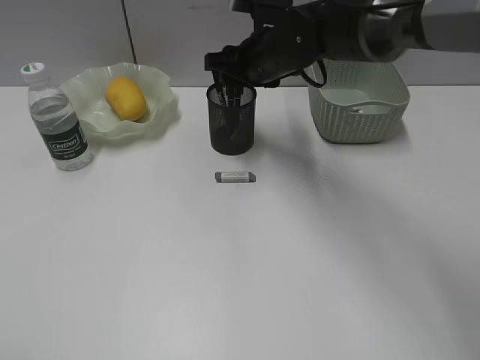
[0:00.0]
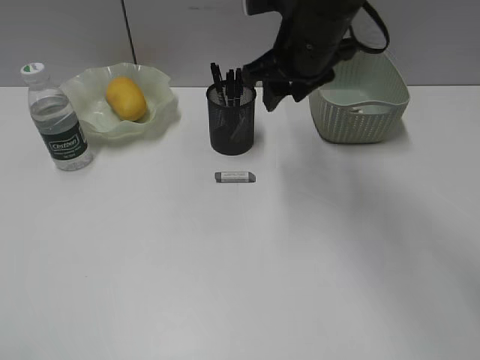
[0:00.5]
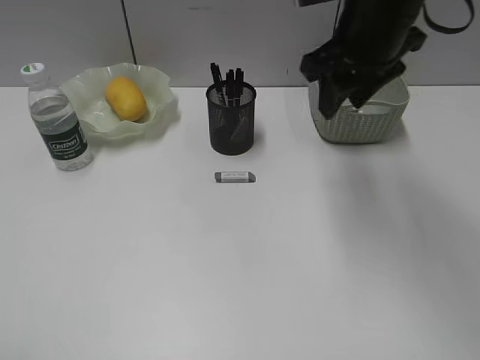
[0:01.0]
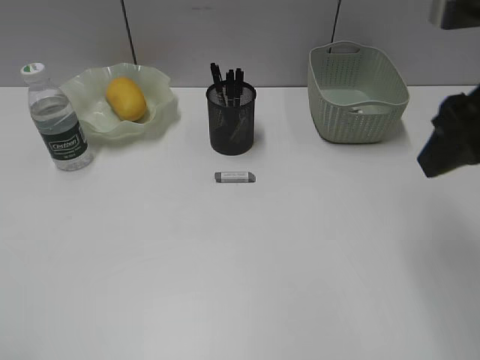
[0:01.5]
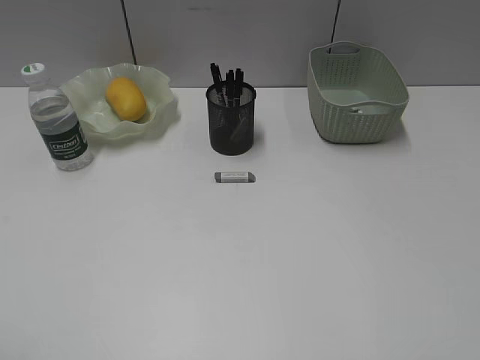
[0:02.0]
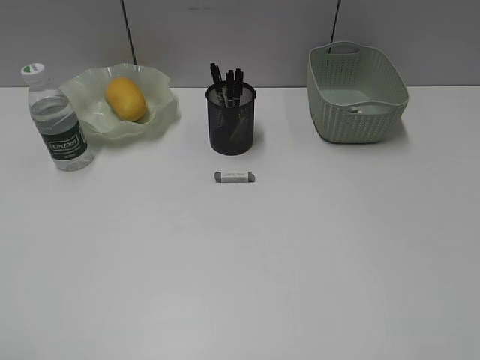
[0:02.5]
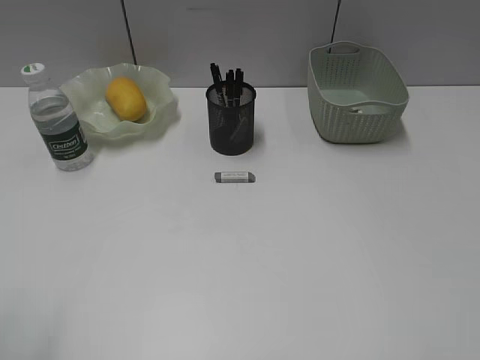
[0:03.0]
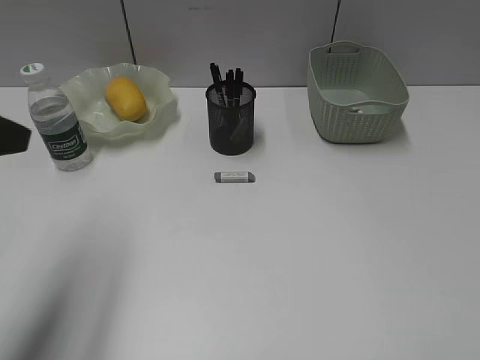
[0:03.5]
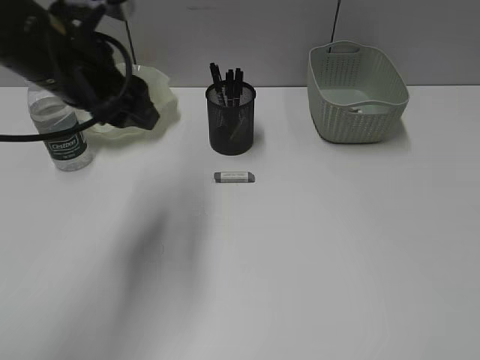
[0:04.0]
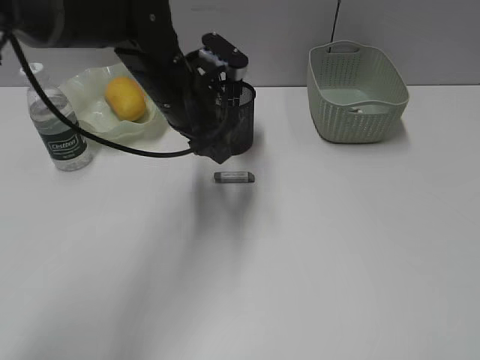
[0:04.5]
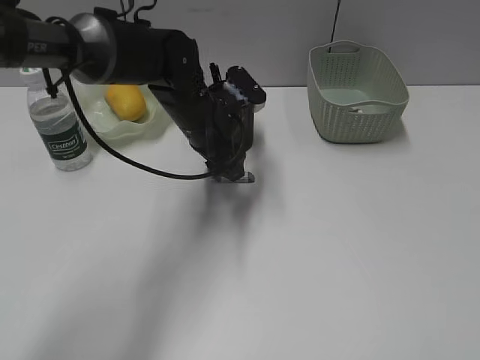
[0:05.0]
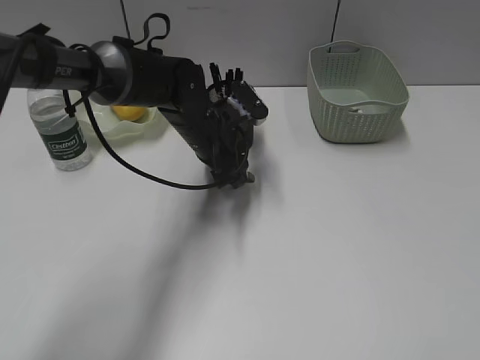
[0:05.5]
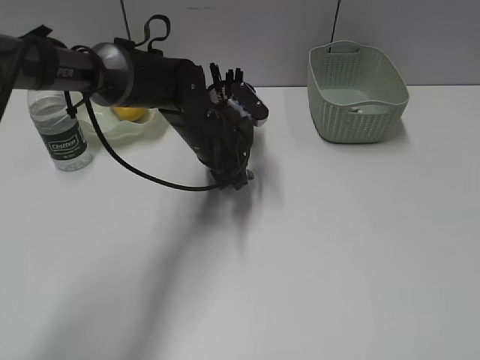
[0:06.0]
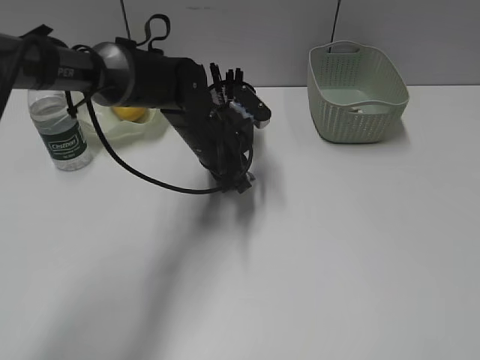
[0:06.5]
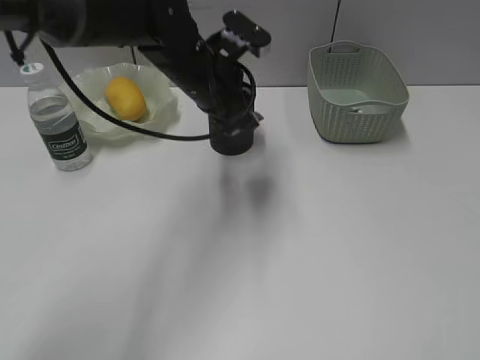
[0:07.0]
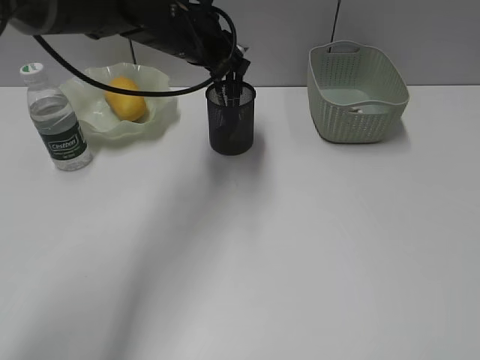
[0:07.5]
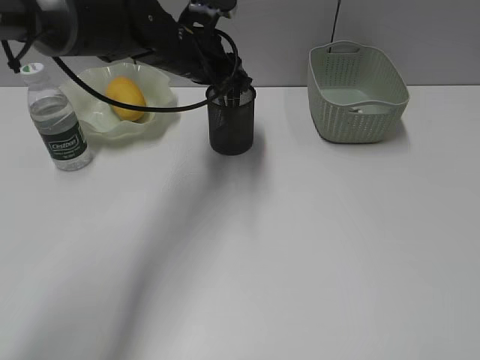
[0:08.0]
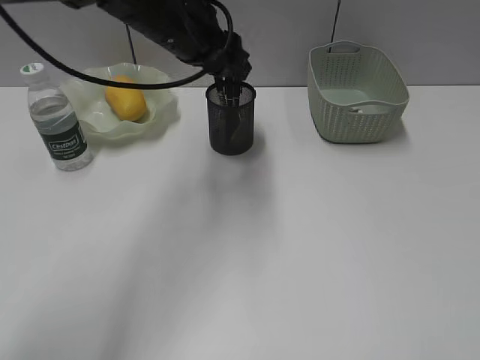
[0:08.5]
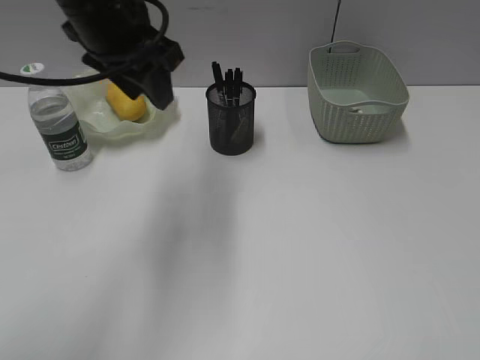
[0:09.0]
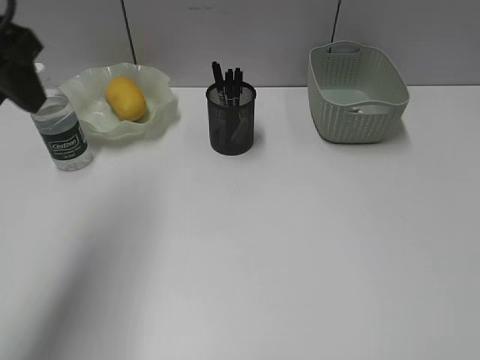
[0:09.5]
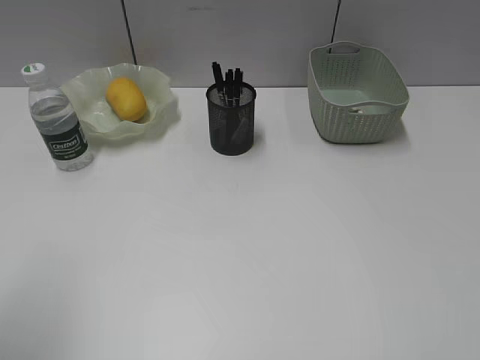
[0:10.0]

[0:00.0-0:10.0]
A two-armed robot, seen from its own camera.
Step, 0:00.5 to 0:06.5: Grasp the eraser with left gripper.
Step, 0:07.0 to 0:08.0: Place the eraser in pen holder with left gripper.
0:00.0 to 0:02.0: The right gripper goes some 40 cm backward and to the right.
0:02.0 to 0:04.0: The right gripper is displaced backward by approximately 5 cm; the left gripper shifts approximately 35 cm forward and to the right.
0:04.0 to 0:06.0: The left gripper heads downward, to the right and forward, covering approximately 20 cm.
0:06.0 to 0:08.0: The left gripper is displaced upward by about 10 cm, and closes and opens again.
0:08.0 to 0:10.0: The left gripper moves backward and to the left, about 40 cm.

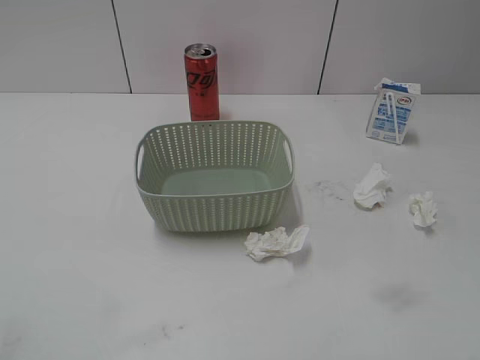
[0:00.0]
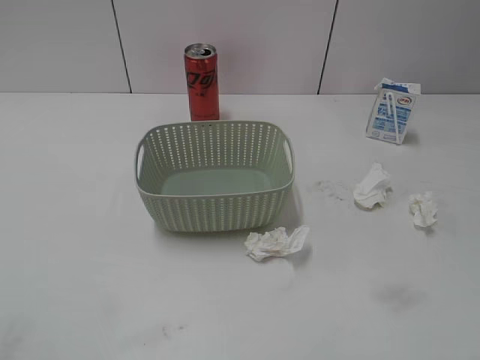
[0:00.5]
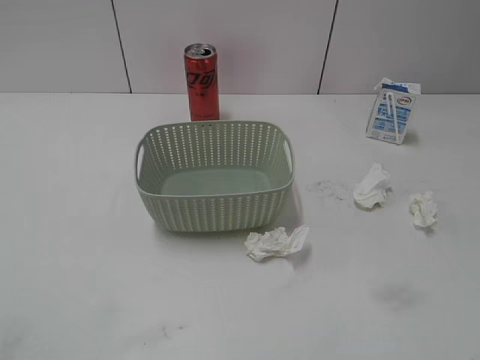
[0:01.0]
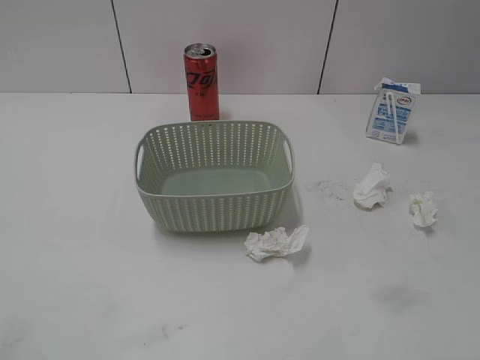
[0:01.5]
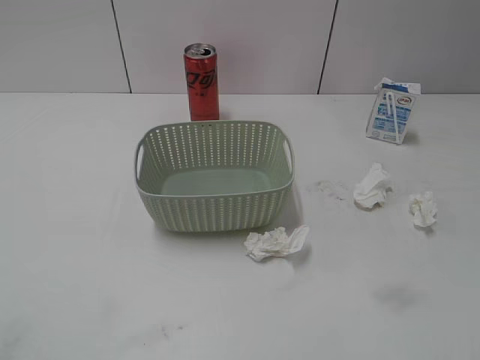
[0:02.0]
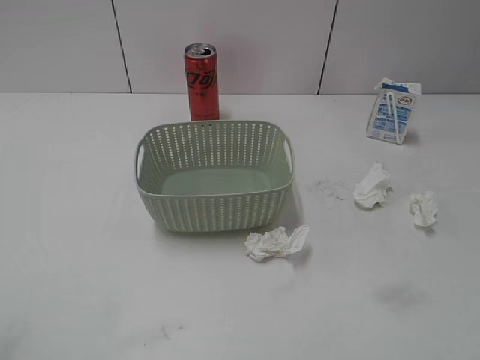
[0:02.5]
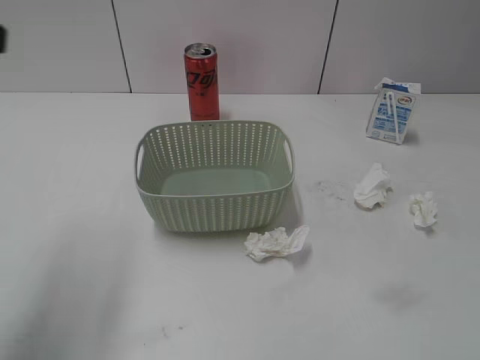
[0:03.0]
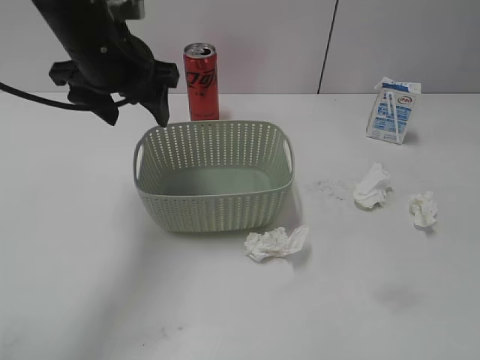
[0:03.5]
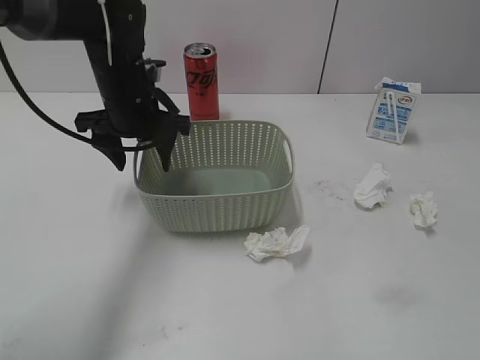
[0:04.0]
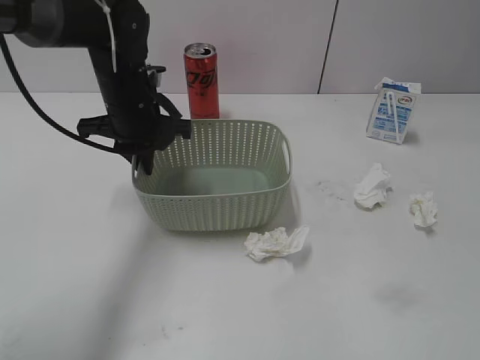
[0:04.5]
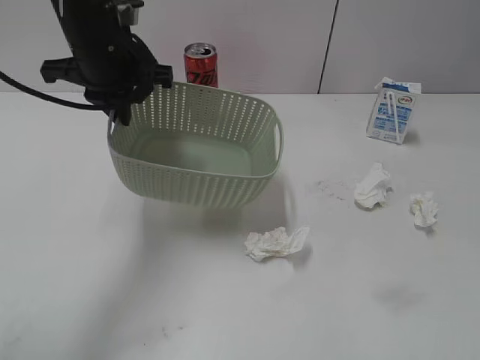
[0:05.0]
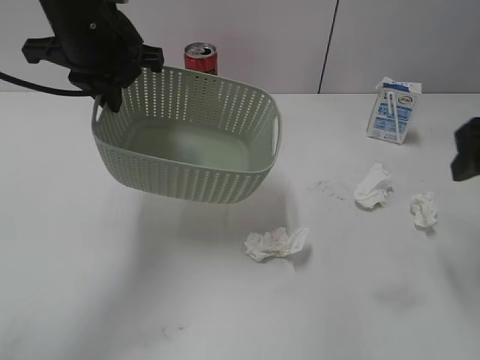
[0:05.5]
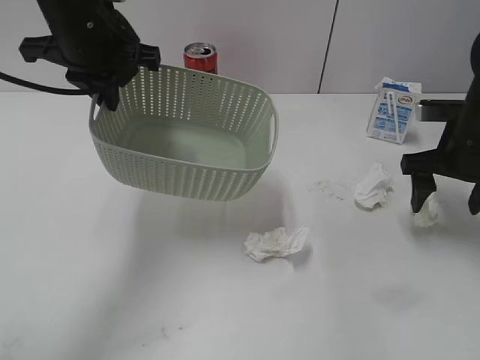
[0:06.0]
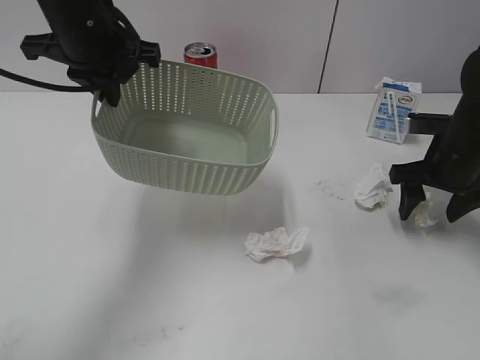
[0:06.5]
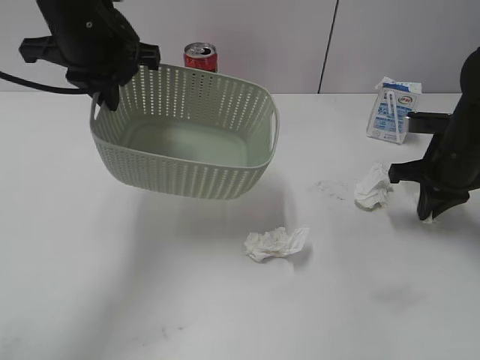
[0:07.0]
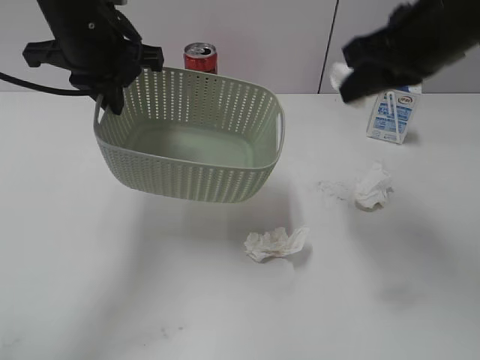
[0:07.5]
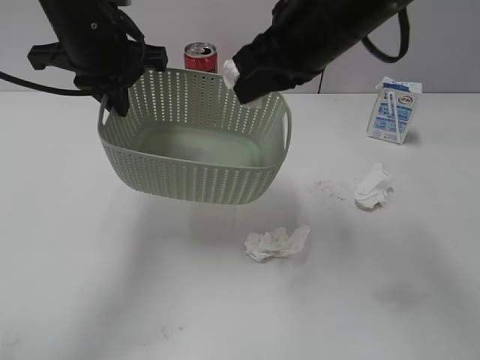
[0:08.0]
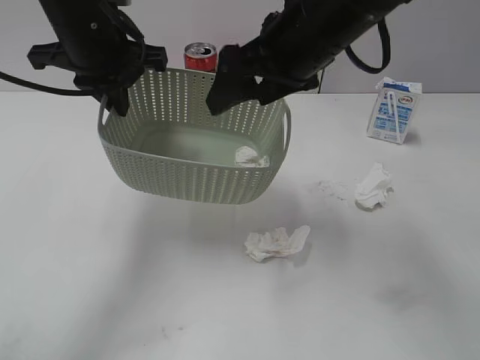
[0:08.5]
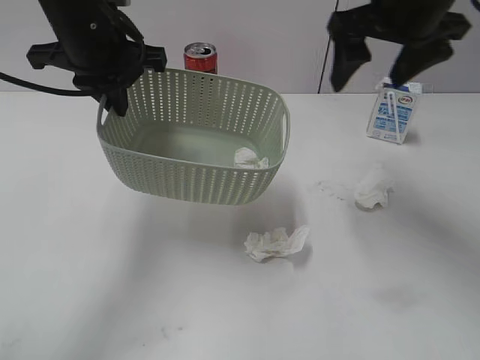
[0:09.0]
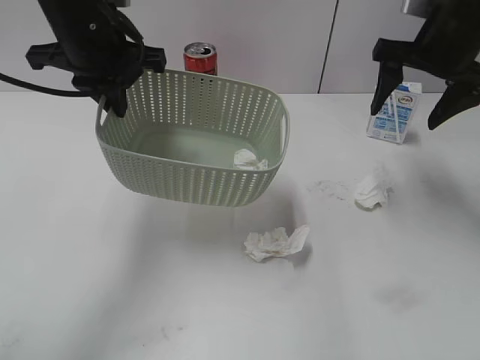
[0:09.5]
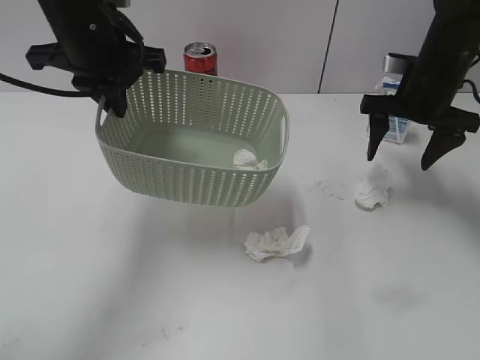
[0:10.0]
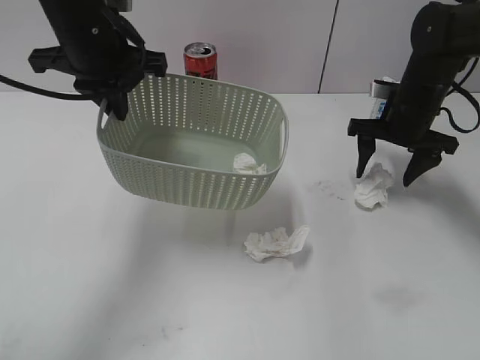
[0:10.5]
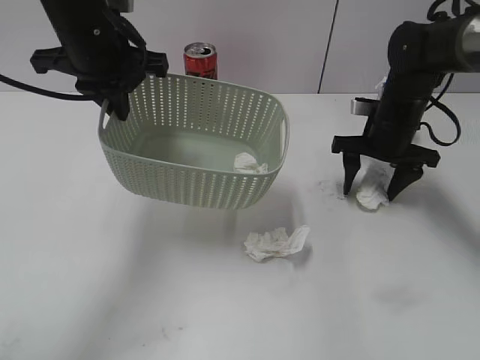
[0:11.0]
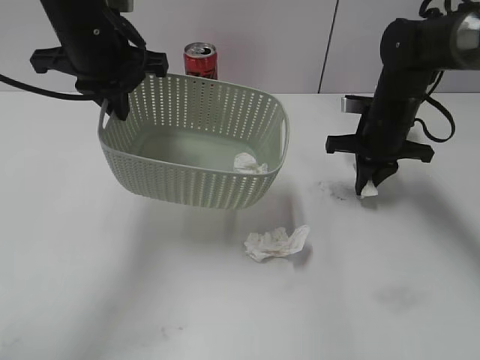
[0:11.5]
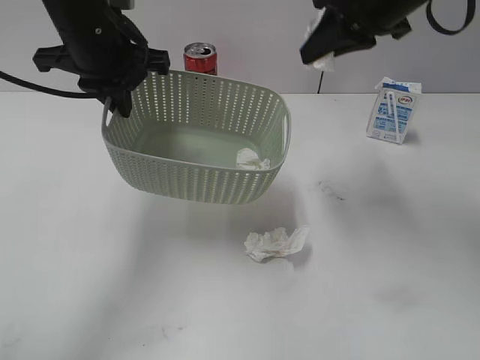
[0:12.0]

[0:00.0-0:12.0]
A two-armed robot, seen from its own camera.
Step, 0:03.0 to 0:04.5: Grasp the basket with left gripper.
Step, 0:05.0 to 0:05.5: Lift the basket with left gripper.
Step, 0:06.0 to 0:07.0: Grasp the waste paper with right gripper.
Step, 0:07.5 to 0:08.0: Place the waste paper in the basket with right gripper.
Step, 0:08.5 to 0:11.0: Grasp the waste paper with right gripper.
0:02.0 to 0:04.0: The left gripper is displaced forward and to the right by roughly 40 cm.
0:04.0 to 0:06.0: The left gripper moves upward, about 10 cm, and closes up. Meanwhile the right gripper heads forward, covering some 35 cm.
0:06.0 to 0:08.0: The right gripper is displaced to the left and upward by roughly 25 cm, and closes.
0:08.0 to 0:10.0: The right gripper travels to the right, downward and forward by some 20 cm, and opens up.
0:10.0 to 0:12.0: The right gripper moves upward and to the left, about 10 cm, and closes up.

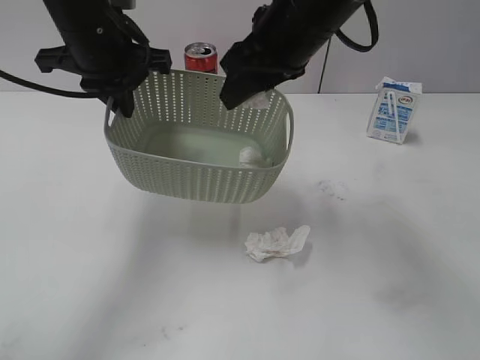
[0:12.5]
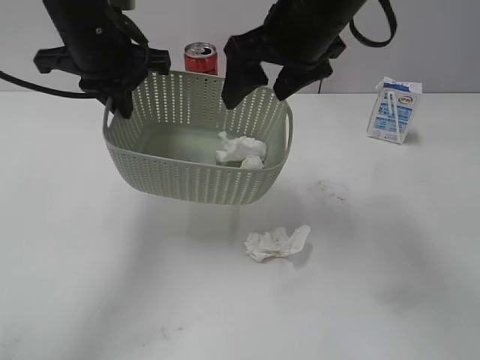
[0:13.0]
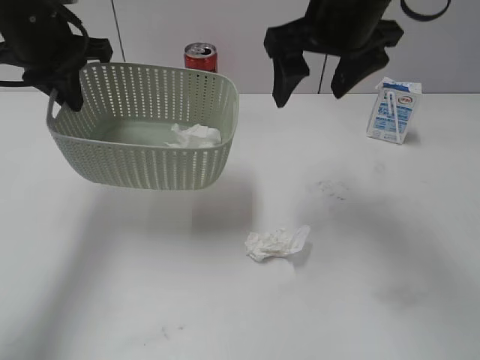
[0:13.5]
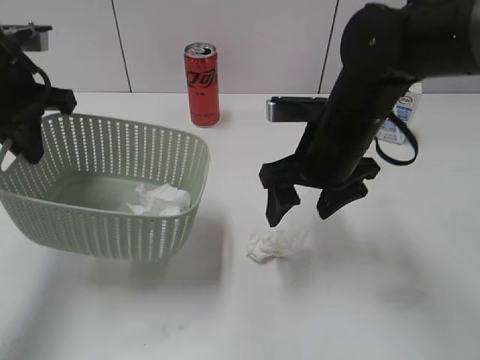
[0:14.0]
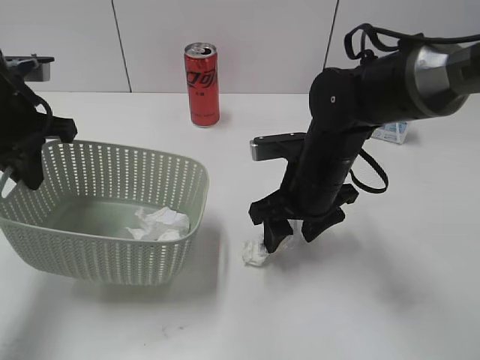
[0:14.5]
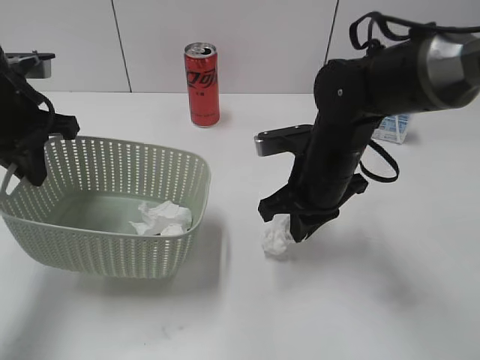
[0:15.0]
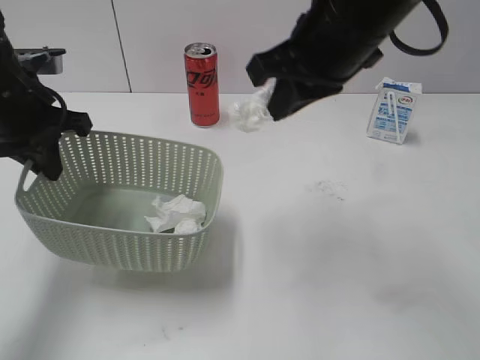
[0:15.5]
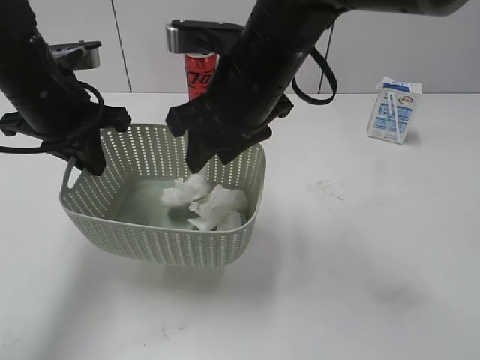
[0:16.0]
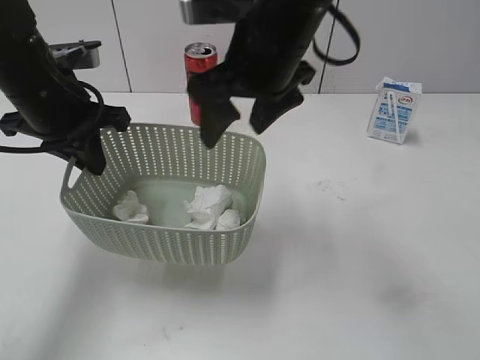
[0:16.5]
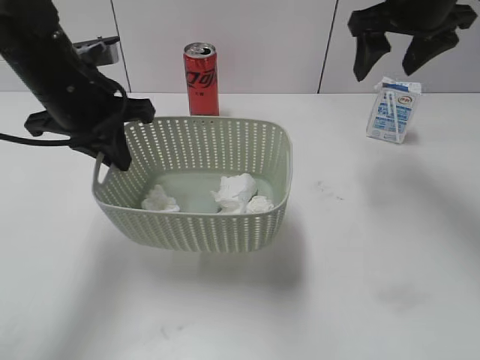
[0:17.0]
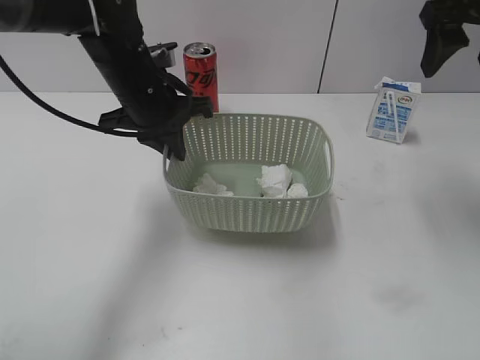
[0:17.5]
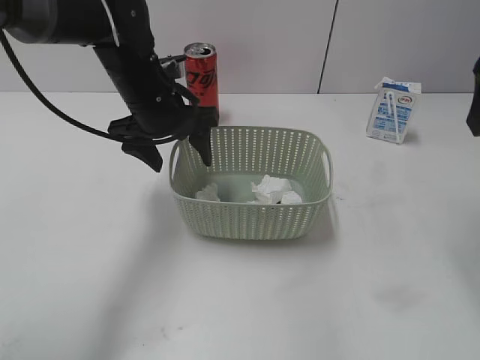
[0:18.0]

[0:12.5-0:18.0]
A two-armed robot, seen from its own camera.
Step, 0:13.5 to 0:15.0: Grasp the waste paper with right gripper.
Step, 0:15.5 to 0:16.0: Place the waste paper in the basket with right gripper.
0:12.5 to 0:14.5: The right gripper is displaced downward by some 15 cm, and opens, while the left gripper heads to the left, covering roughly 10 cm.
0:14.5 to 0:16.0: The right gripper goes approximately 15 cm upward and to the left, and closes up.
0:16.0 to 0:18.0: The right gripper travels to the right by roughly 25 cm, and opens up, while the left gripper travels to the right, forward and downward by roughly 10 cm, and opens up.
